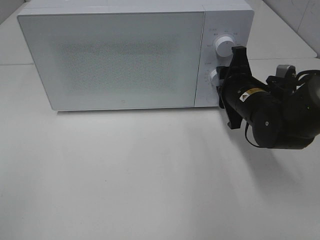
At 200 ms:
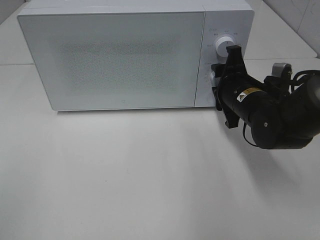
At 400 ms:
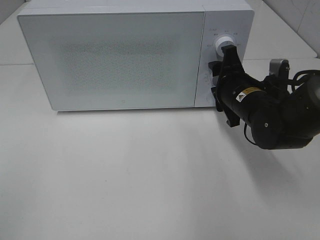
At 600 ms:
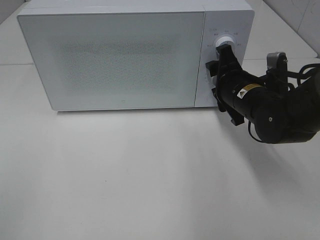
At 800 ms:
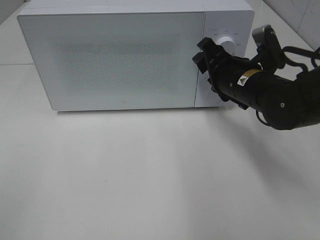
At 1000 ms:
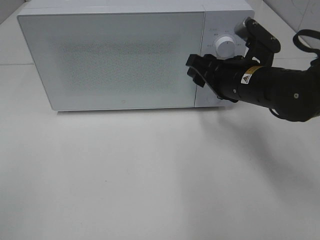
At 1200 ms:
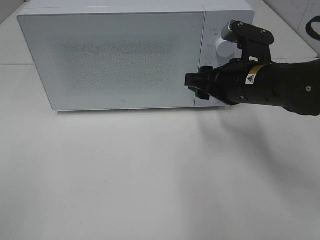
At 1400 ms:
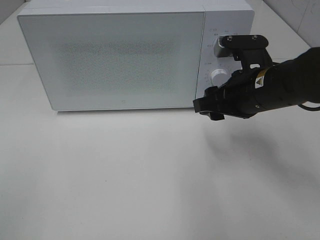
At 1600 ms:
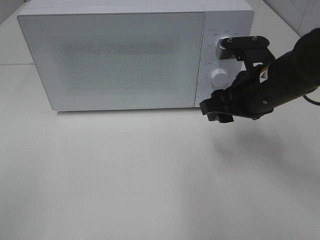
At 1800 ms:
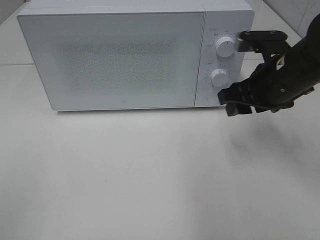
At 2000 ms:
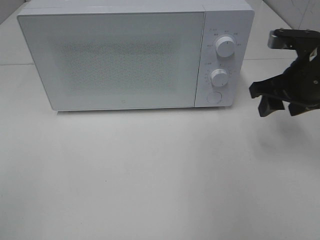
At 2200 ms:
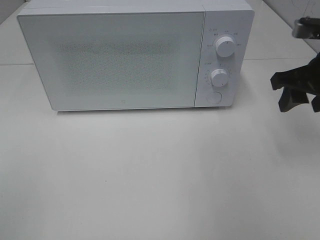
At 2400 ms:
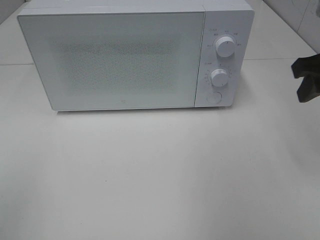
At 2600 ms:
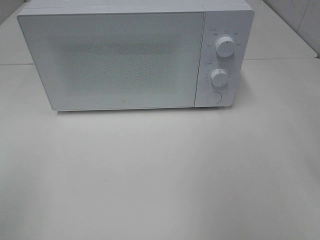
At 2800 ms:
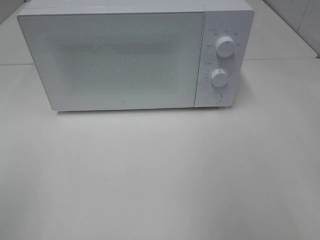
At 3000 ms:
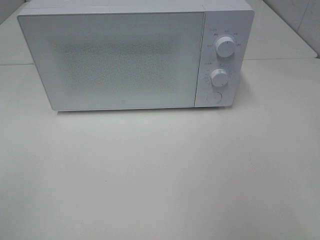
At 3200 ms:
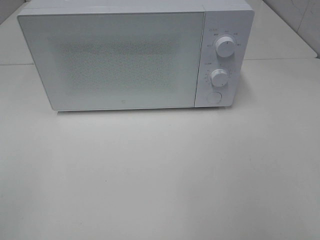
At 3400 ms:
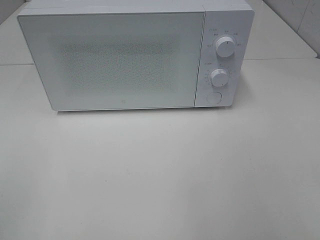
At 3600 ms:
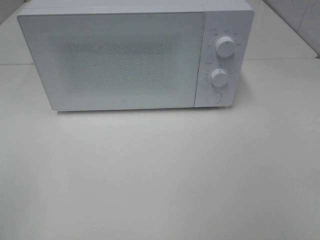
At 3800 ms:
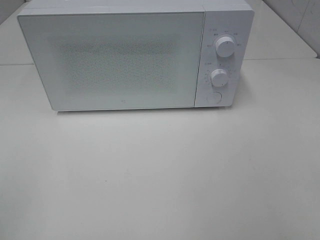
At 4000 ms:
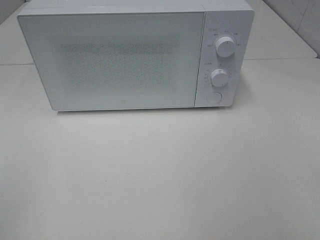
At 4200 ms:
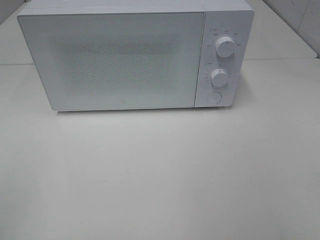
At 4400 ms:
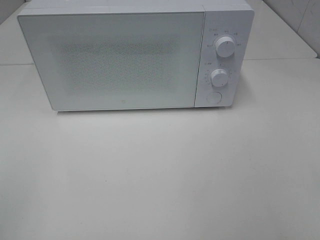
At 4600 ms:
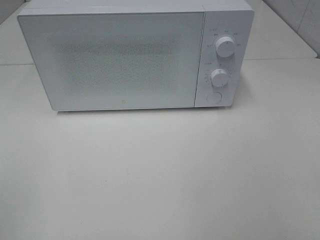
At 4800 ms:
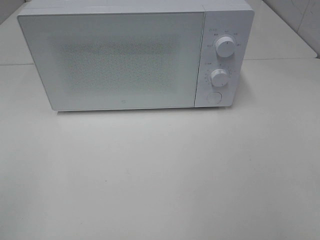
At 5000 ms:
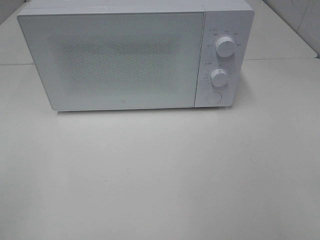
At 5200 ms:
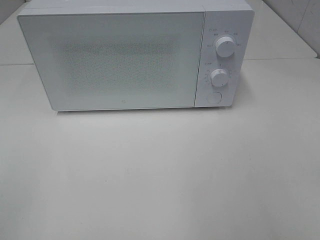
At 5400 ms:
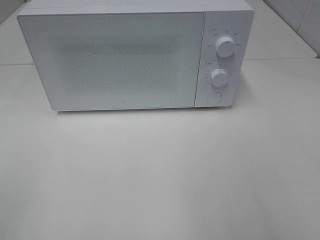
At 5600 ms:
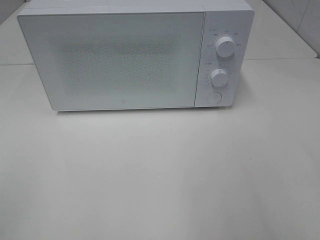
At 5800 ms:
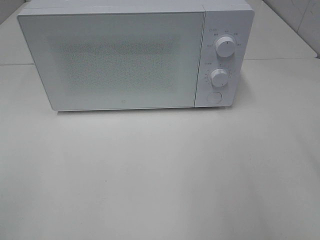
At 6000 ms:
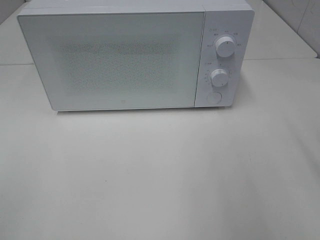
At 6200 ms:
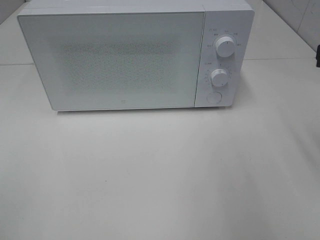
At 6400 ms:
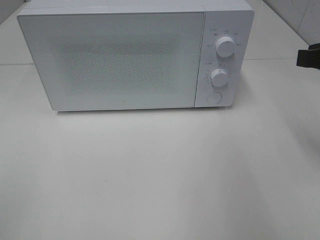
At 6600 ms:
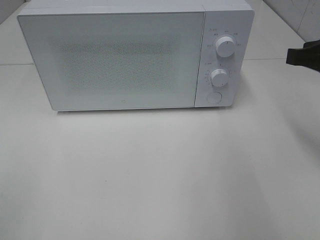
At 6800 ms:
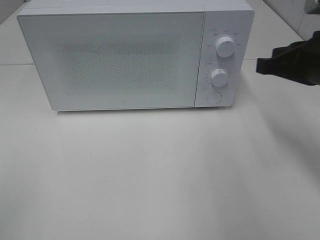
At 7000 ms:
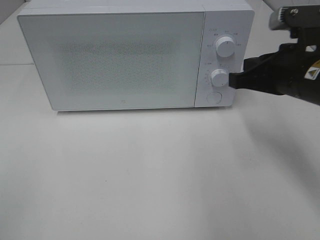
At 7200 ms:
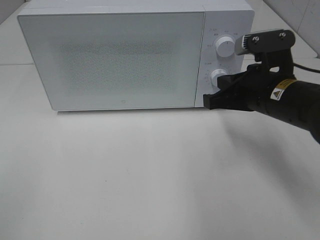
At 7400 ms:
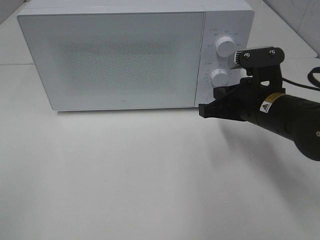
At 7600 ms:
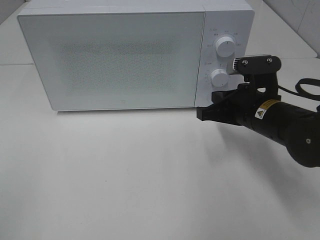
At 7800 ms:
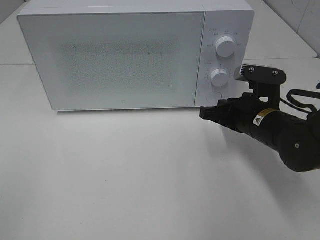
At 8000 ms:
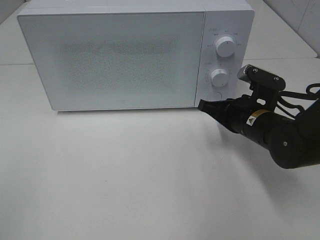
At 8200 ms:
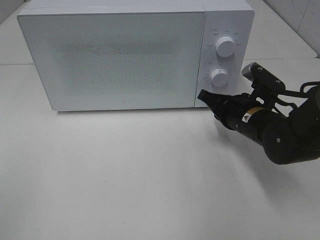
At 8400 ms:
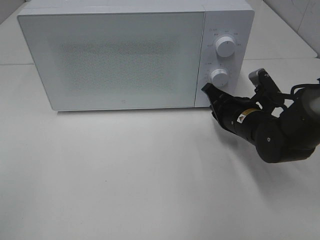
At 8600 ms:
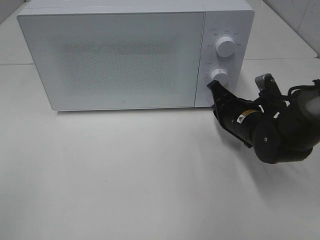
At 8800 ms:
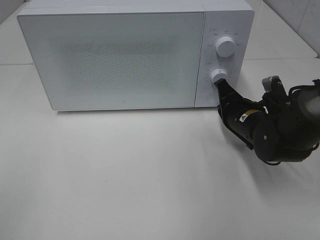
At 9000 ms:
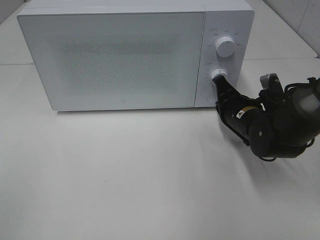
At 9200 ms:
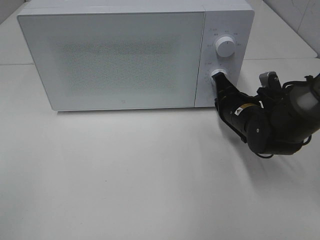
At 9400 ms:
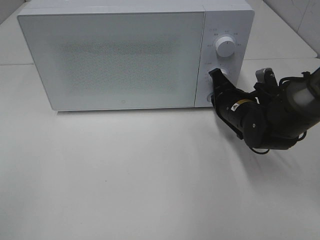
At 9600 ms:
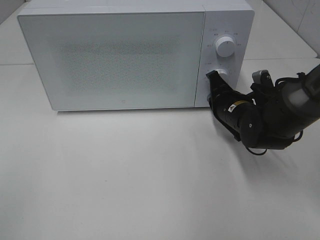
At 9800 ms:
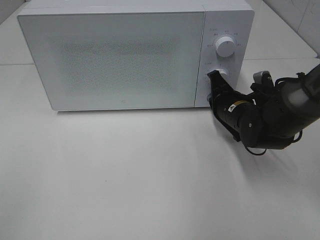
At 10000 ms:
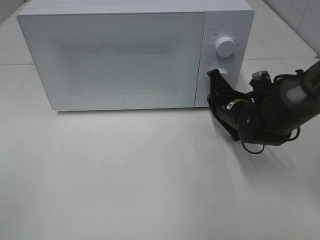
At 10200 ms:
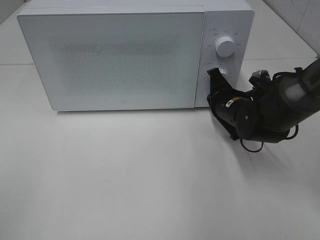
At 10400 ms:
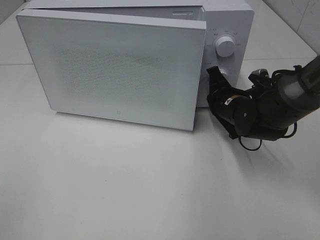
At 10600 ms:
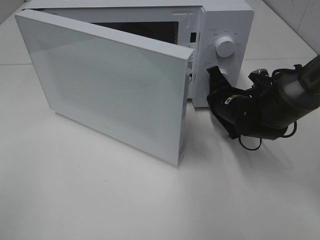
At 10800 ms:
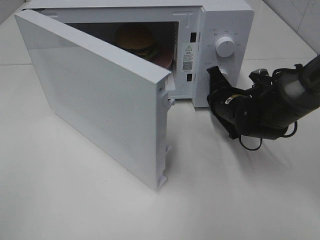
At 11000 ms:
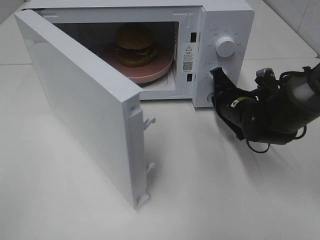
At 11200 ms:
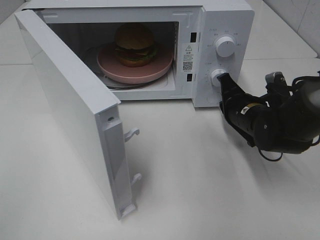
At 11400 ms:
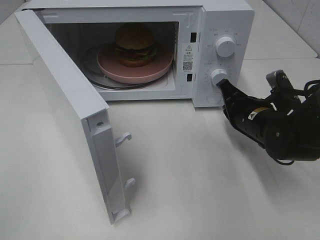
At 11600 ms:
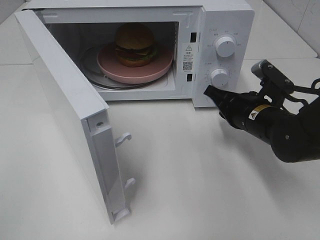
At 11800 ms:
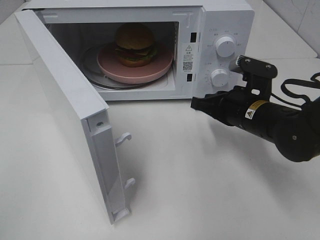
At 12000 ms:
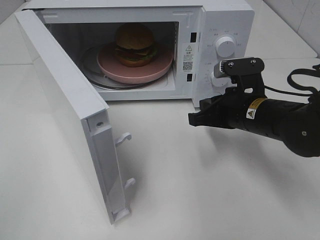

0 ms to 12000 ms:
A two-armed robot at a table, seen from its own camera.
Task of the whole recording: Heat the burger.
Step, 400 ms to 11200 ms: Right hand: press the switch.
0 ms to 1600 ms: The right gripper heads upward, covering roughly 5 cm.
1600 ms to 3000 ms: The right gripper heads backward, to the right and upward, covering roughly 25 cm.
6000 ms to 7600 ms: The right gripper goes about 25 cm downward, forward and to the left, and closes.
7600 ms to 9000 ms: The right gripper heads downward, covering some 5 cm.
9000 ms to 10400 ms: The grippers move only a little.
10400 ms to 12000 ms: The right gripper heads backward, covering about 10 cm.

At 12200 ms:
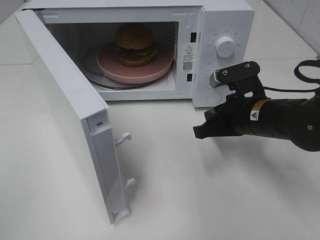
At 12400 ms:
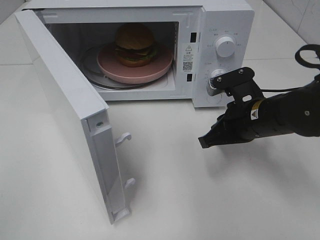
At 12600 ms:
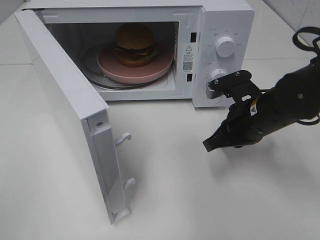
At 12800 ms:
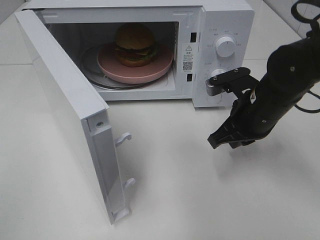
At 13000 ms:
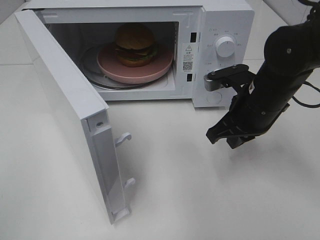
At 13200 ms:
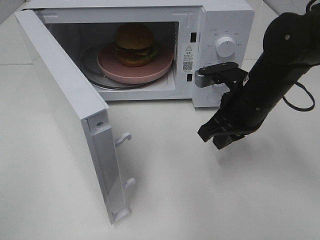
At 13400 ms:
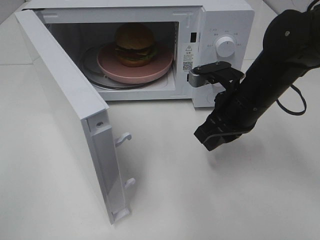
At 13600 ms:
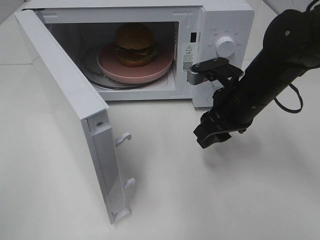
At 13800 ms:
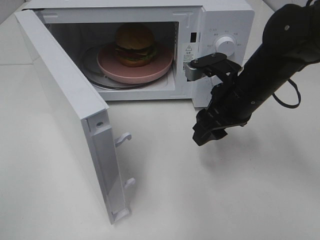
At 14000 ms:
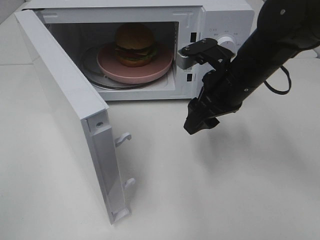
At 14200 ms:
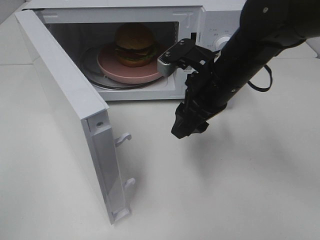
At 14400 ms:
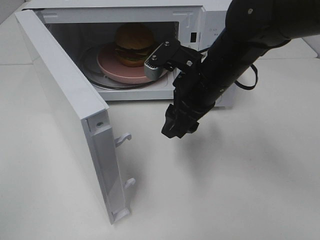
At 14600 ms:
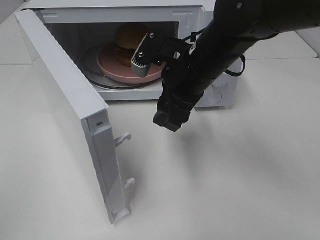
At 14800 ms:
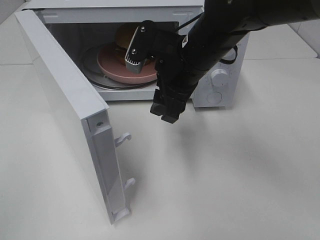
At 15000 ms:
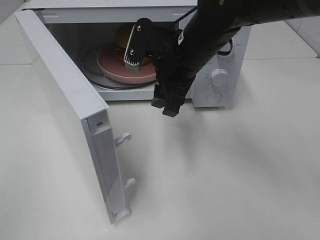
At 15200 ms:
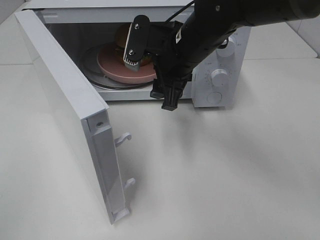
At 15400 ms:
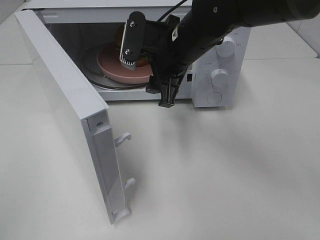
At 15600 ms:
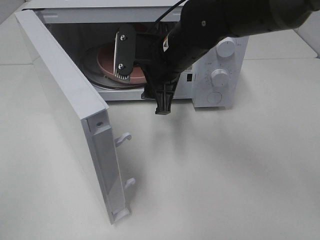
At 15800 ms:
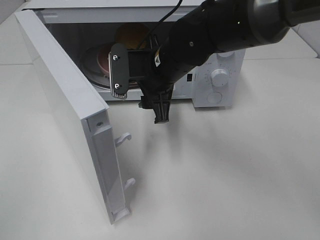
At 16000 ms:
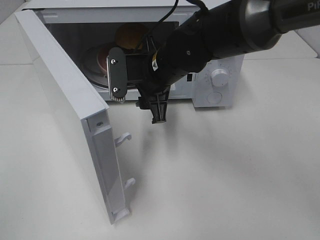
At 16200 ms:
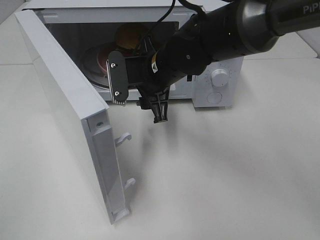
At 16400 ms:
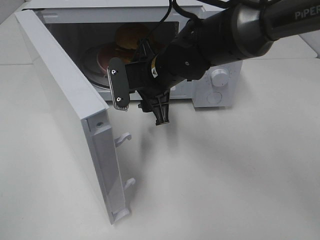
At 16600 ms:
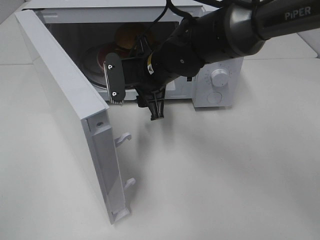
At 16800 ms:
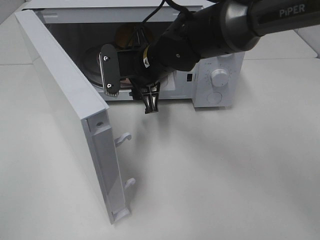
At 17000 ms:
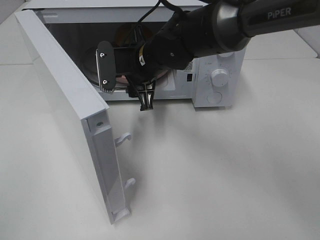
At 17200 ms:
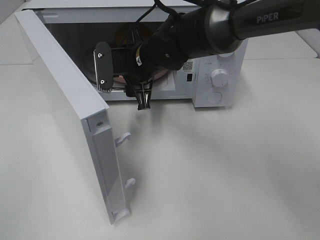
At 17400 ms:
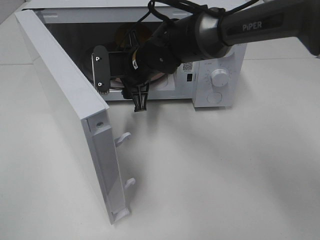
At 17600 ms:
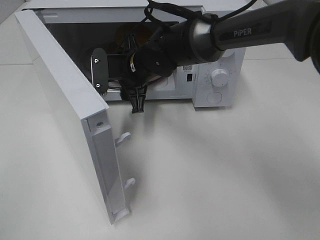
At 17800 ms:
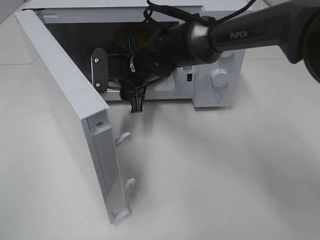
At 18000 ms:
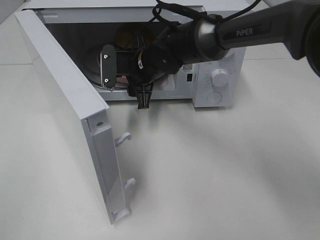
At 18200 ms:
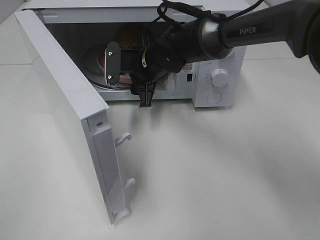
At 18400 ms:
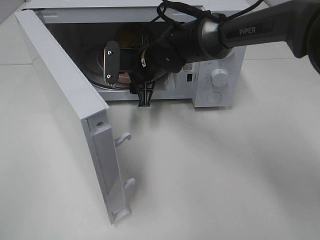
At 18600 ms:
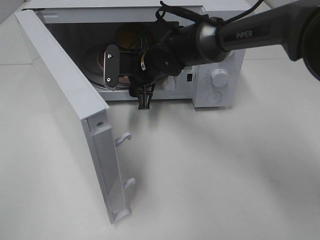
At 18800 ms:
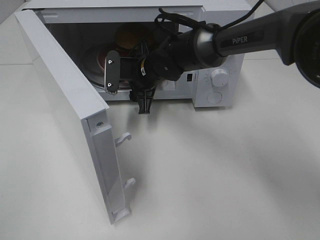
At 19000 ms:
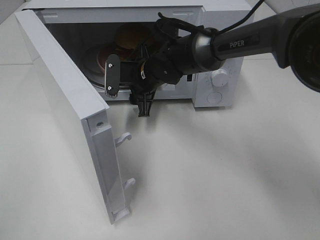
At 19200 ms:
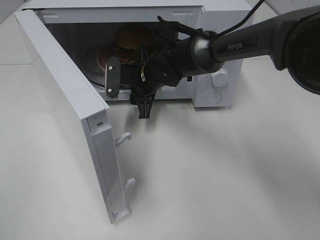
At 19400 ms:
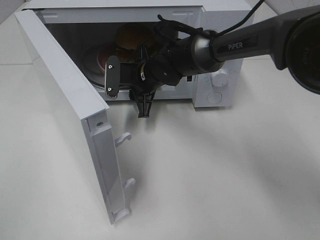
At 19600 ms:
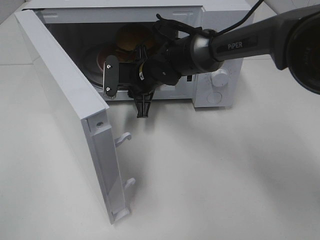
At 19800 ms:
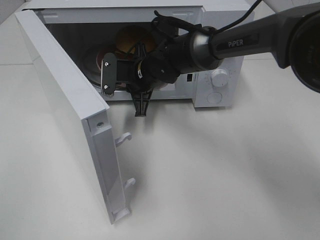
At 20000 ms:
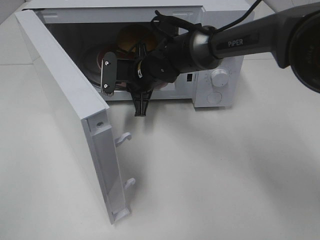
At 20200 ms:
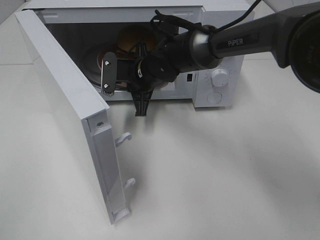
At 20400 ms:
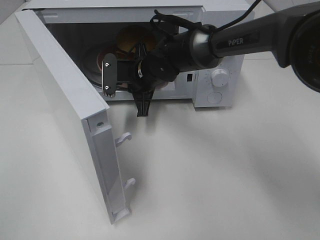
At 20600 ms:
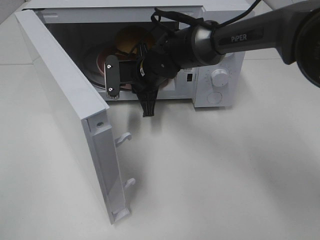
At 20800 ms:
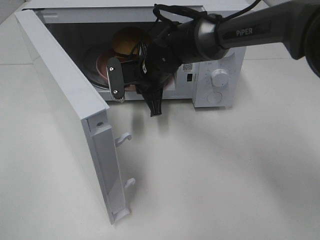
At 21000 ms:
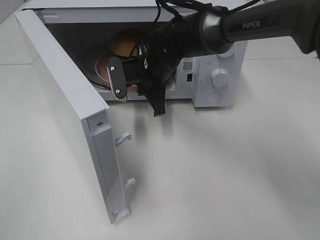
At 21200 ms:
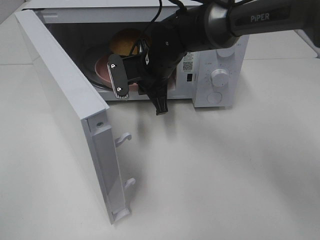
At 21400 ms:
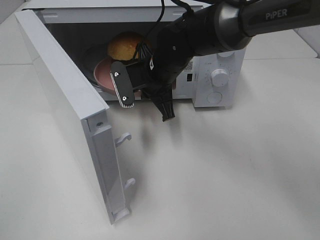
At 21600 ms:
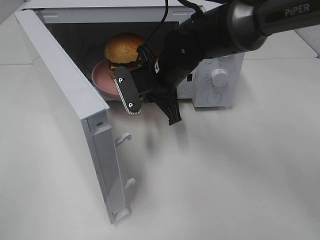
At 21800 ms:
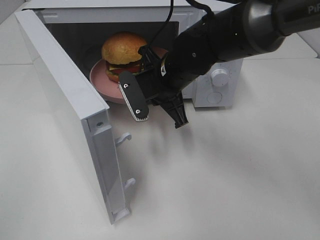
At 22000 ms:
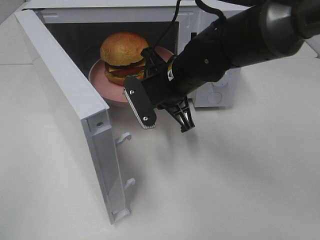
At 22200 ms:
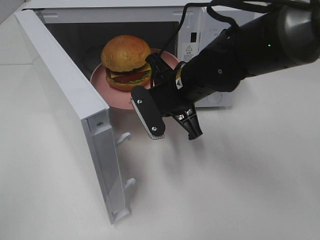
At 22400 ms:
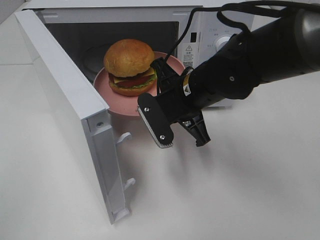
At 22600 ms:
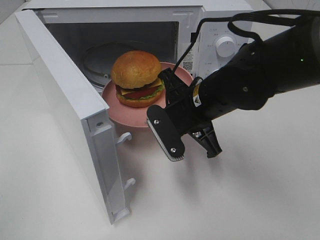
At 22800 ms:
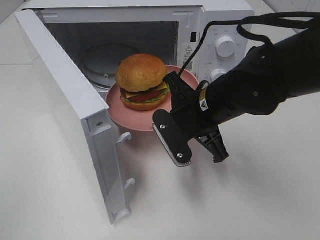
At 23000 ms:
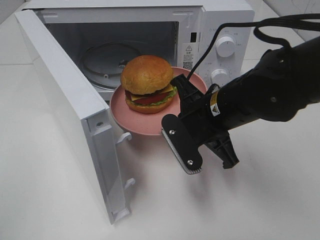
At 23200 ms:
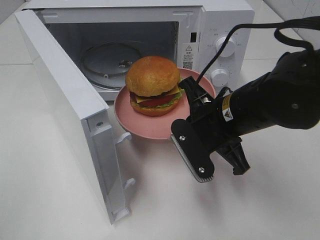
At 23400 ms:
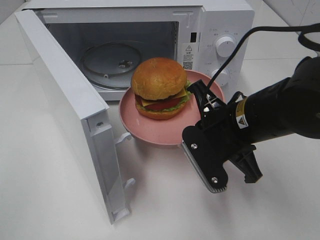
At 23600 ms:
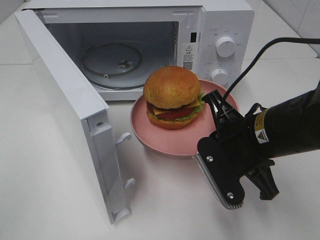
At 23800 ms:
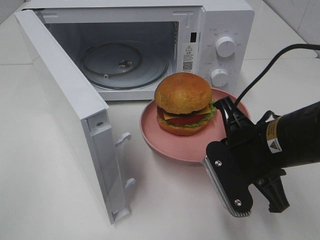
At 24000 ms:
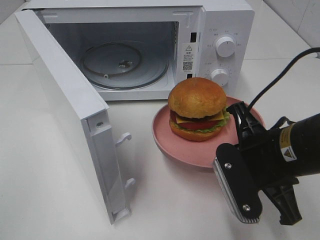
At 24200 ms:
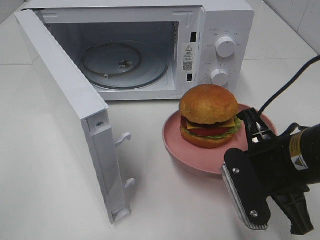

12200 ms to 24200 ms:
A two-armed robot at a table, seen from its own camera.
Task of the whole recording: Heat the burger.
Step, 12200 ms to 19800 ms: Right hand: grab the plate with the hamburger.
12200 ms to 13800 ms: The right gripper moves roughly 5 cm, and opens.
13800 ms to 15200 ms: The right gripper travels to the left by about 10 cm.
15200 ms to 16600 ms: The right gripper ends up about 5 cm from where it was.
16600 ms to 18200 ms: The right gripper is displaced forward by about 5 cm.
18200 ms to 19800 ms: The right gripper closes its fingers.
19800 ms to 21200 ms: There are only small adjustments of the grippers.
21200 ms to 22600 ms: The right gripper moves backward and to the right, approximately 15 cm.
22600 ms to 24200 ms: The right gripper shifts about 15 cm backward and to the right.
